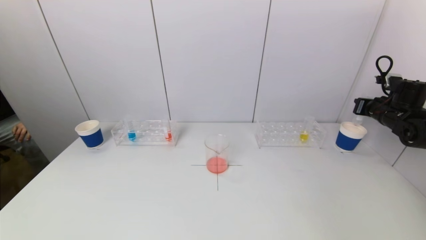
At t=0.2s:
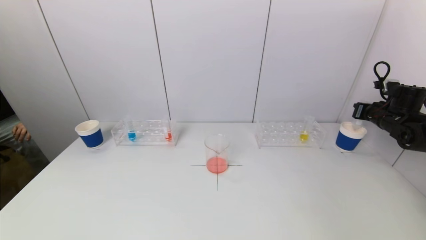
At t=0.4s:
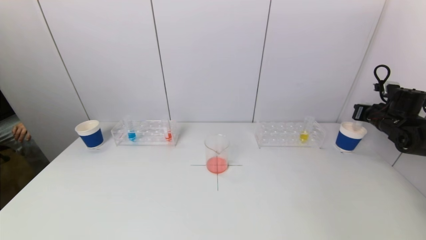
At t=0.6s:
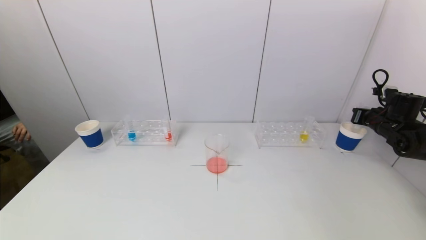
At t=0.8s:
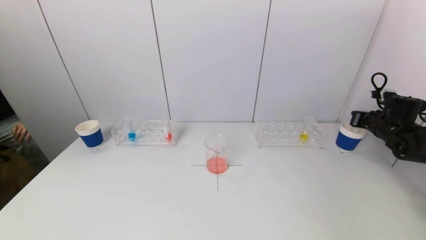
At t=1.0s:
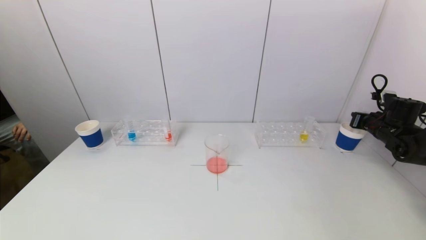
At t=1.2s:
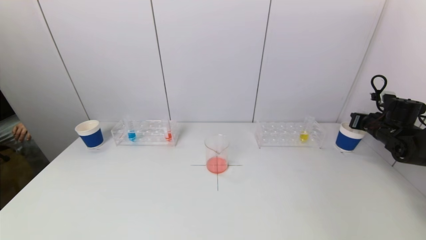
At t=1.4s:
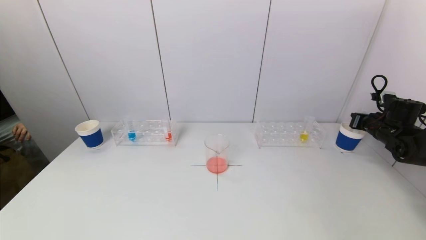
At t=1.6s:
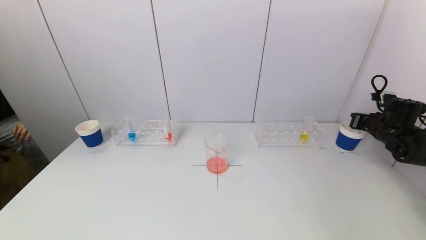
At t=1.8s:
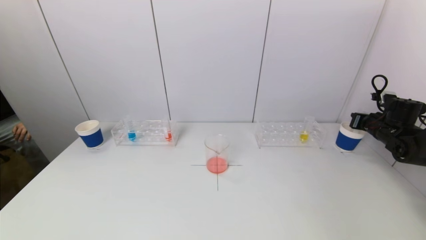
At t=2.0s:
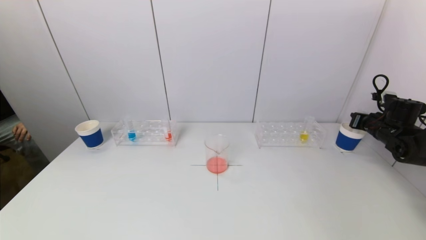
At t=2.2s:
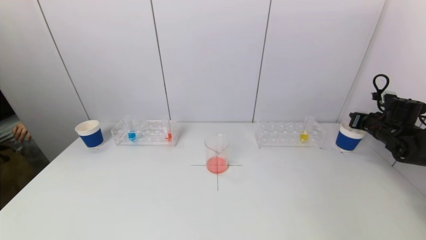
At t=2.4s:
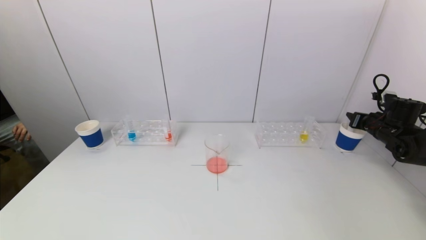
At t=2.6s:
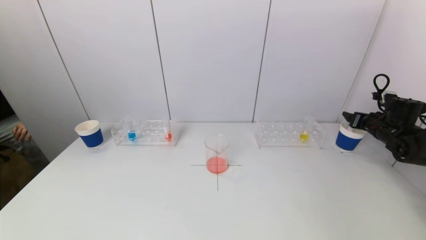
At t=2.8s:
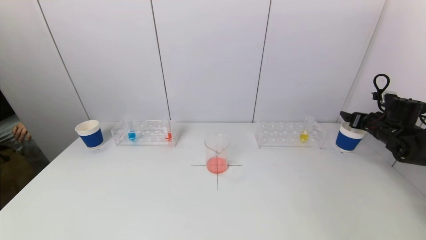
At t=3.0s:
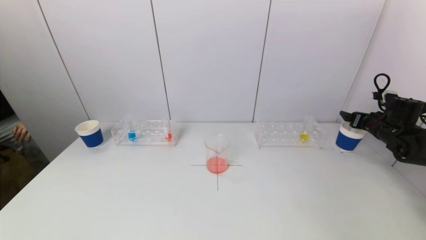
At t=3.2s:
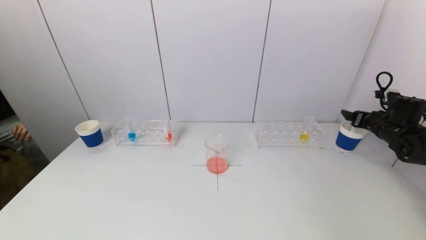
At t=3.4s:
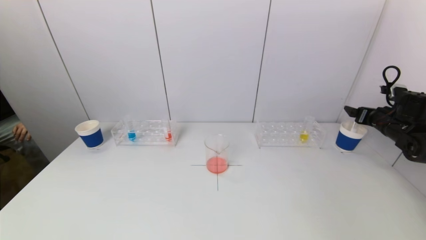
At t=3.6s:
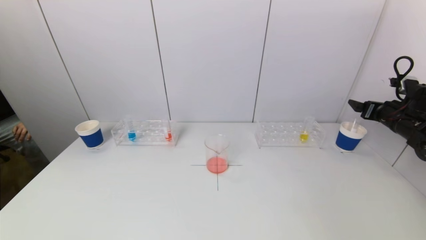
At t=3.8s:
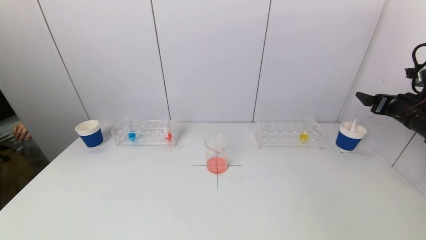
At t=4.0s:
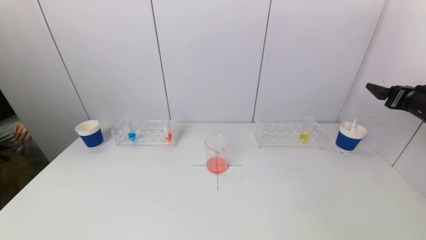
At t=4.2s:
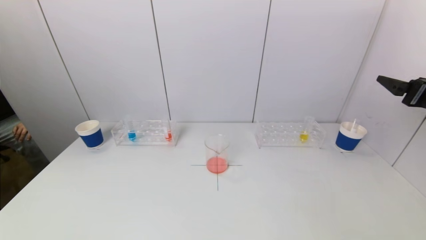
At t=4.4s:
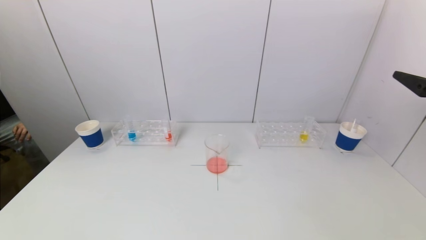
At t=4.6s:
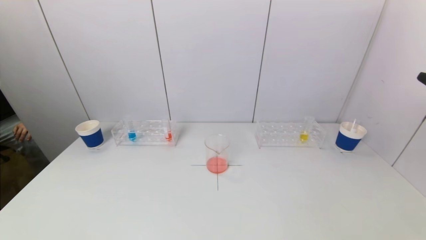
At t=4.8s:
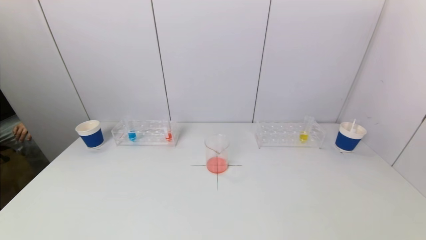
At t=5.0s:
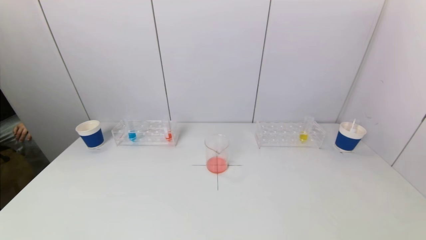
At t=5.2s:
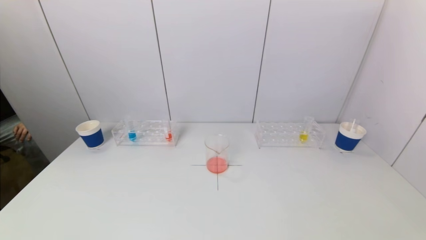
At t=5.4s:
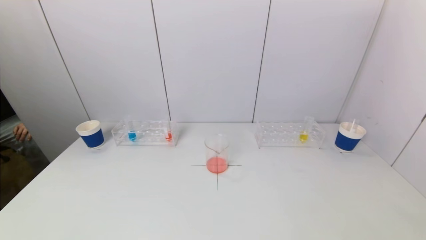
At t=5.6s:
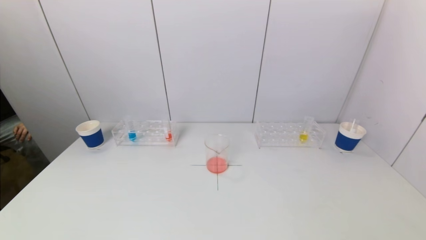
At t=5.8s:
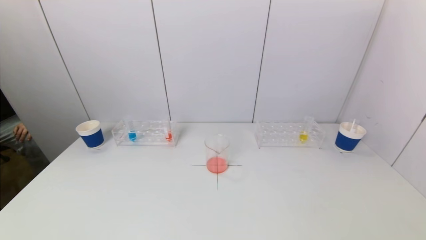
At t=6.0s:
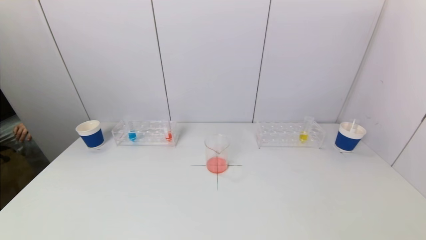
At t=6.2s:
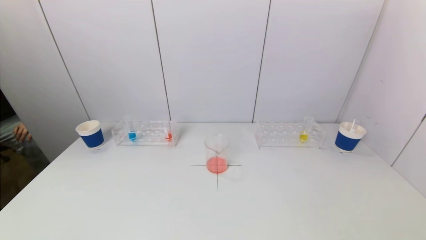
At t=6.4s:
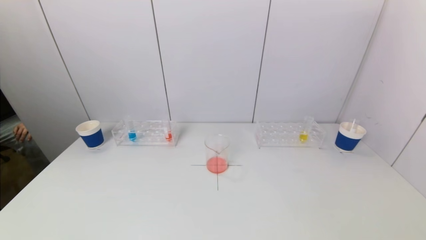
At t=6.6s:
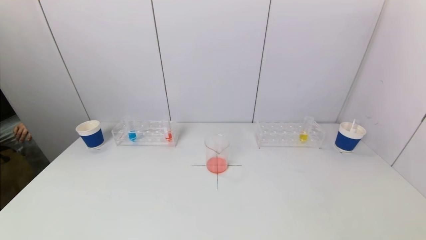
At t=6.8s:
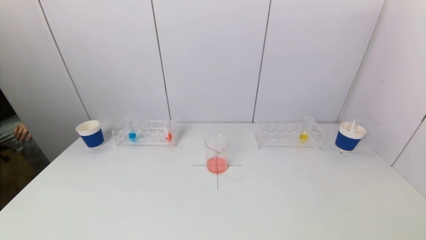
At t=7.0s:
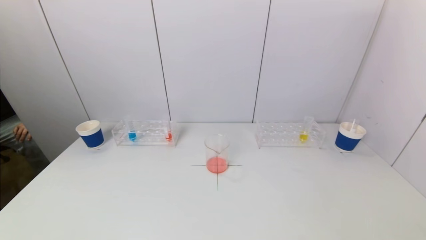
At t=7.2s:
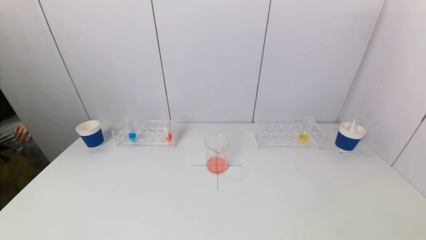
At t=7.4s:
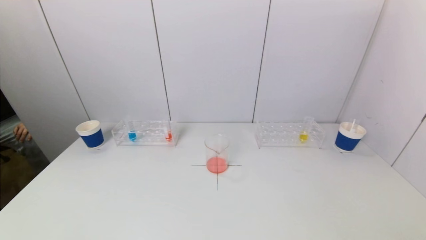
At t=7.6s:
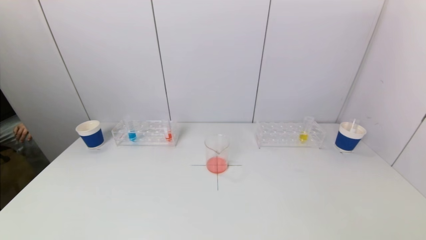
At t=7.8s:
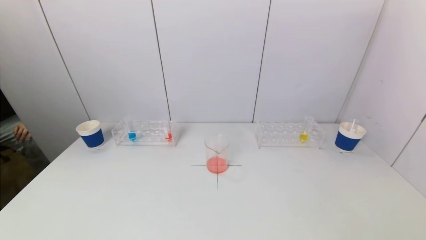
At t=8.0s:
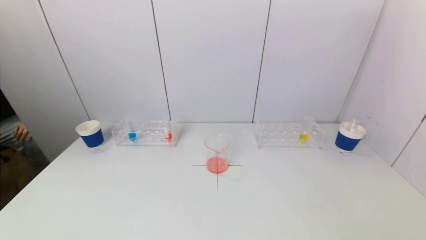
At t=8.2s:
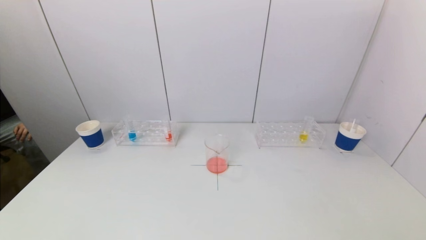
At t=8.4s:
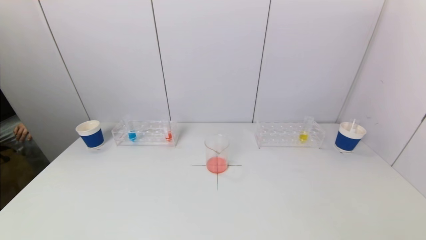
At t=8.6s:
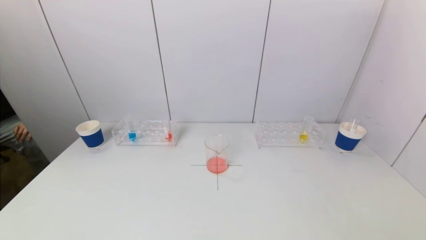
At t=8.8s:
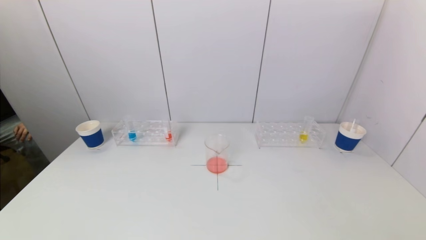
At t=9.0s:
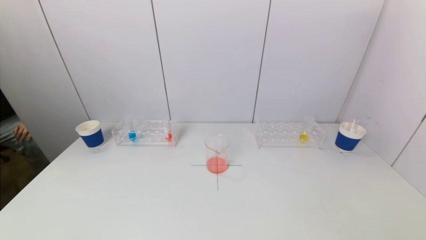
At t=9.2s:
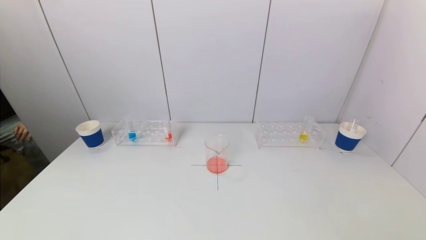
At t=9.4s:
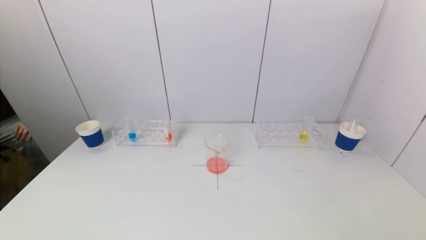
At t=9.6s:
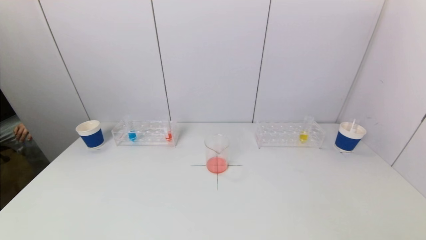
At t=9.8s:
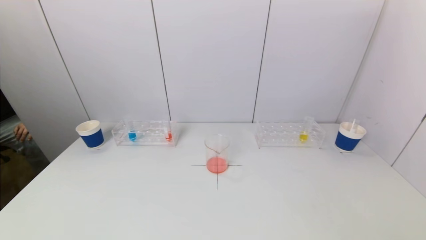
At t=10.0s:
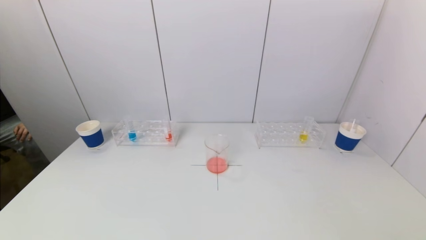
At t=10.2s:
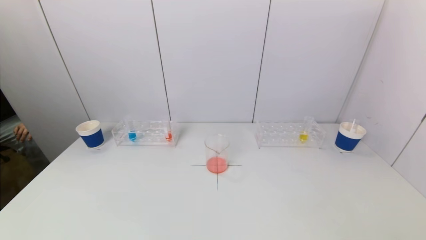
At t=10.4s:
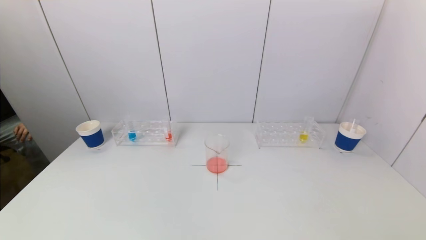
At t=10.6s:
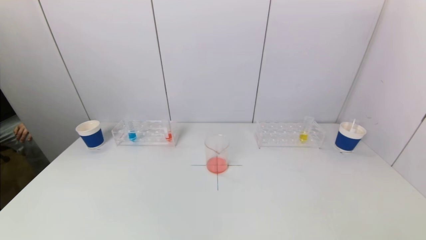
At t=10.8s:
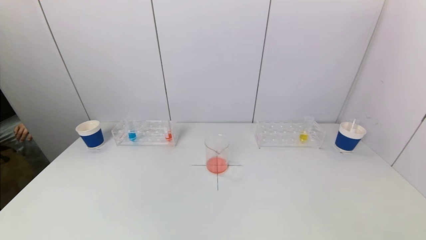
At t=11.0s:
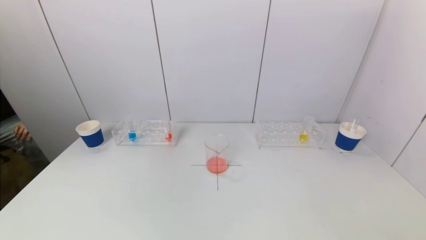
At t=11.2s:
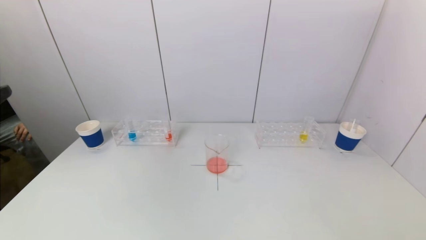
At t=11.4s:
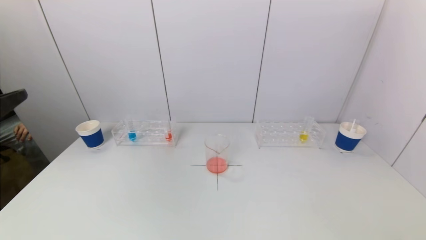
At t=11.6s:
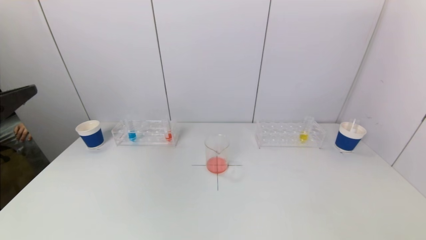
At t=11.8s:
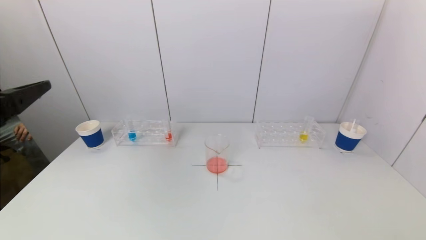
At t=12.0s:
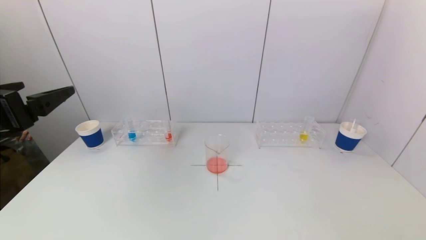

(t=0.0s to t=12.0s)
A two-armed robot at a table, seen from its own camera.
Task of the whole recording: pick up a test tube with pigment on left test tube rack and a test tube with pigment on right test tube rack by grippers and pour them into the beaker.
Step, t=0.0s - t=3.2s: Place the test tube into the paper cup with the right gripper.
t=0.0s - t=1.6s: The right gripper ends up about 5 cm from where it was.
t=1.6s - t=3.0s: The right gripper opens.
t=3.0s - t=4.4s: The right gripper travels backward and upward by about 25 cm.
t=4.4s - t=6.0s: The right gripper travels backward by some 25 cm.
t=10.4s - t=12.0s: The left gripper shifts roughly 20 cm forward.

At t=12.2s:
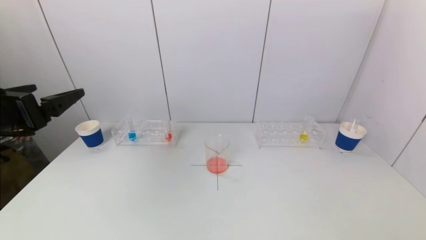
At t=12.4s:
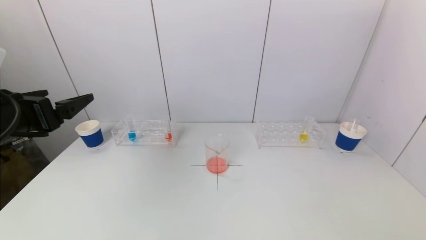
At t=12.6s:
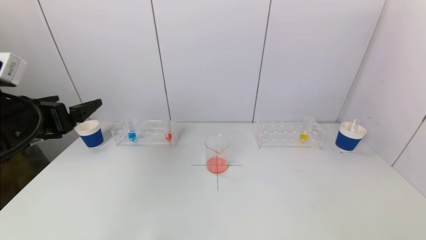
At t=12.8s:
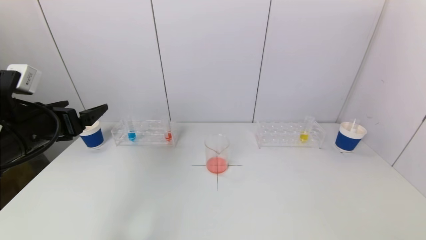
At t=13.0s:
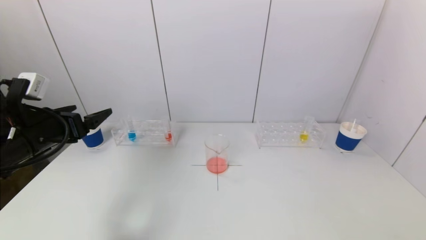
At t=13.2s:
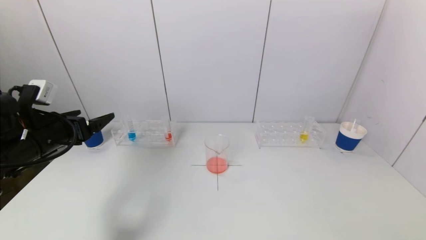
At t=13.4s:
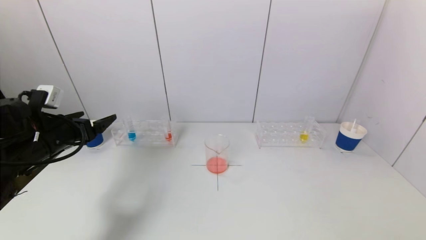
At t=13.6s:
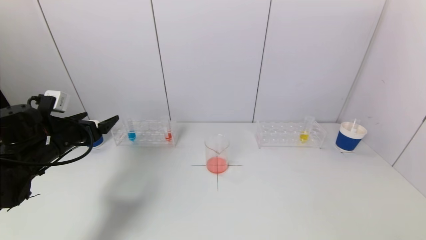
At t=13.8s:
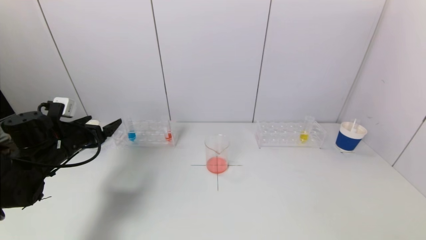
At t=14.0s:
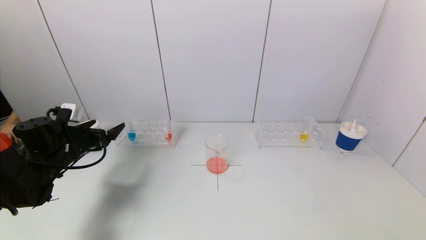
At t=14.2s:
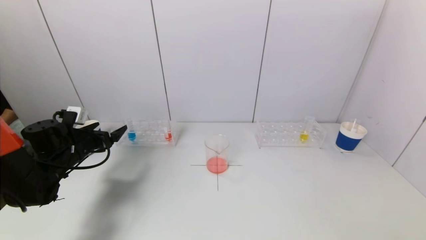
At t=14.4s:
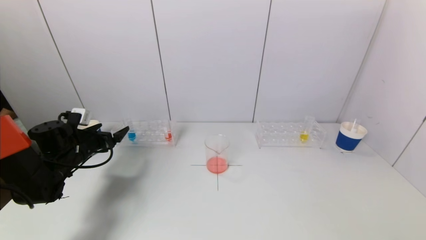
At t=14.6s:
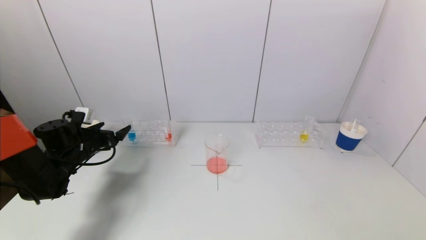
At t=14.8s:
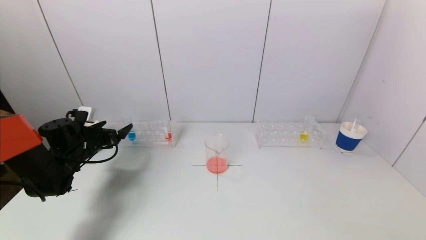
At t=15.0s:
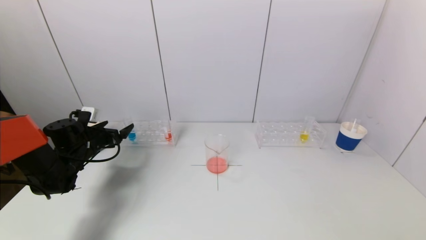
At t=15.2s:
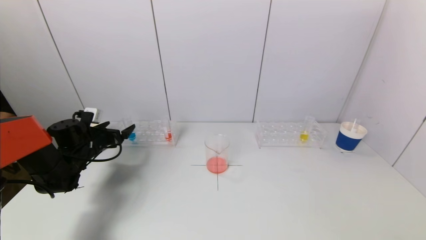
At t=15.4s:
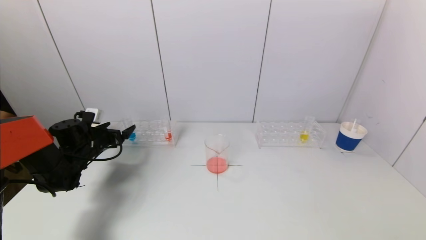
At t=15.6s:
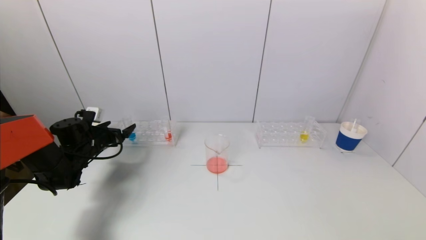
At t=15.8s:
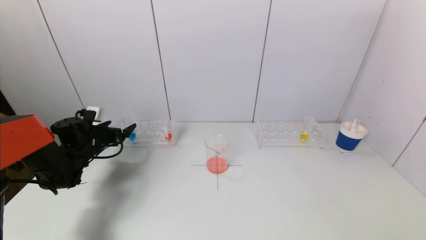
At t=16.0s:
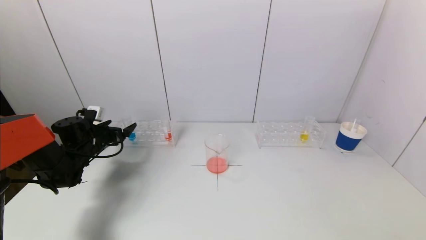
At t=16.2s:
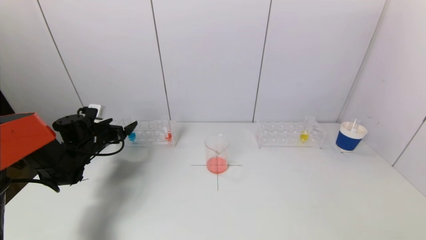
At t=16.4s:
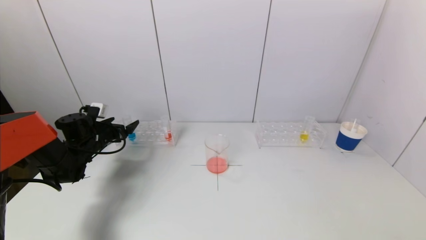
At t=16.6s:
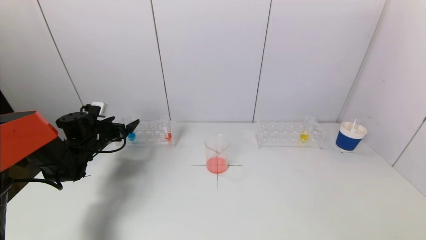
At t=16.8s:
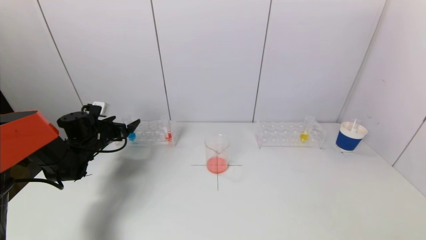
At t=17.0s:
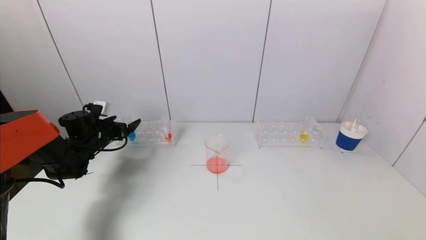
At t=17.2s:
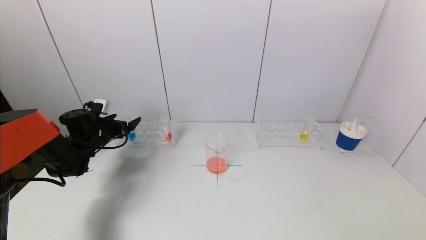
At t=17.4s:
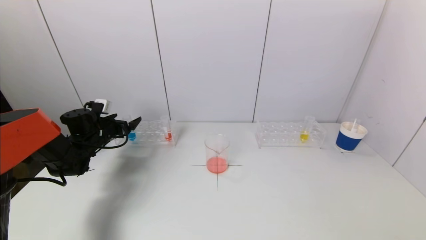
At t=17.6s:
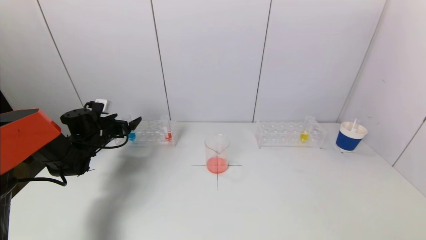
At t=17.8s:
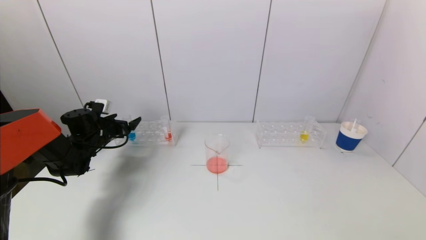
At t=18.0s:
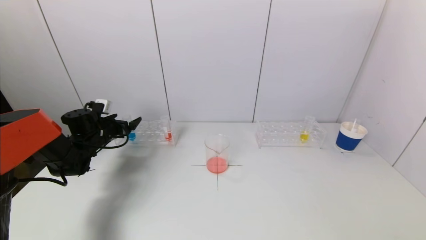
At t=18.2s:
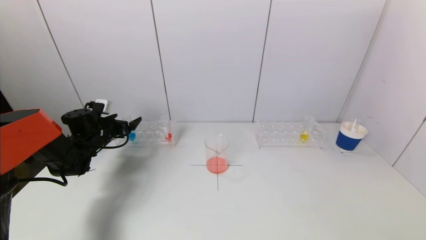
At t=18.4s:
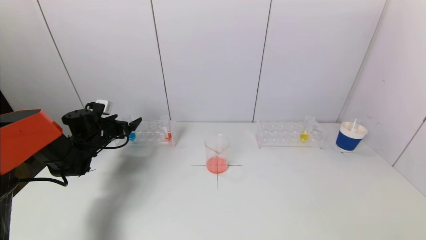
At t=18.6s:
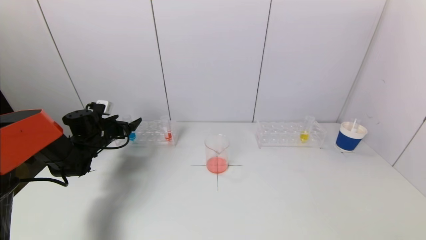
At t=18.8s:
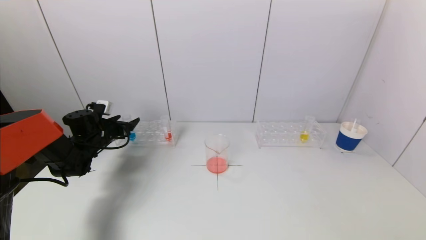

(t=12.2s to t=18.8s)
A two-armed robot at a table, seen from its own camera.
Task of the whole recording: pick up a test tube with pigment on left test tube rack and a test tube with pigment on right test tube rack by grippers and pour them into the beaker.
t=12.2s - t=13.8s: The left gripper is displaced downward and forward by about 20 cm.
t=13.8s - t=15.4s: The left gripper heads forward and downward, covering approximately 10 cm.
t=15.4s - t=17.2s: The grippers make only small movements.
t=17.2s - t=18.8s: The left gripper closes up.
